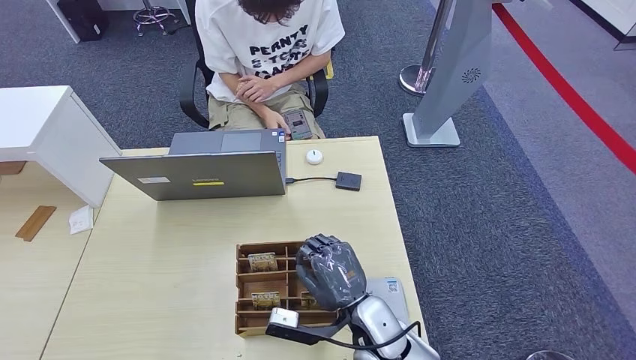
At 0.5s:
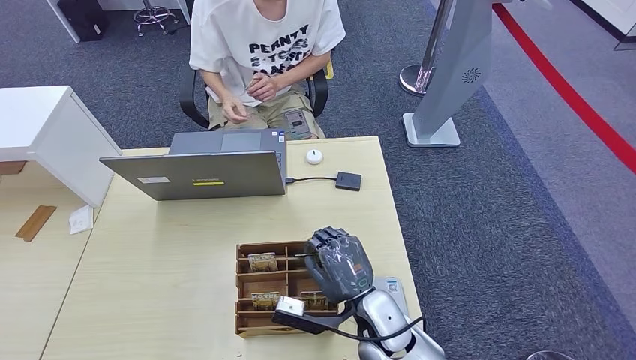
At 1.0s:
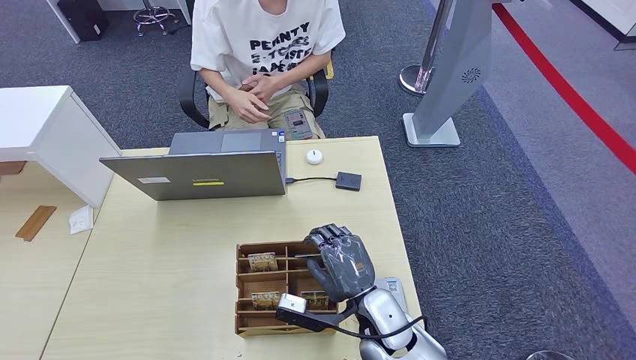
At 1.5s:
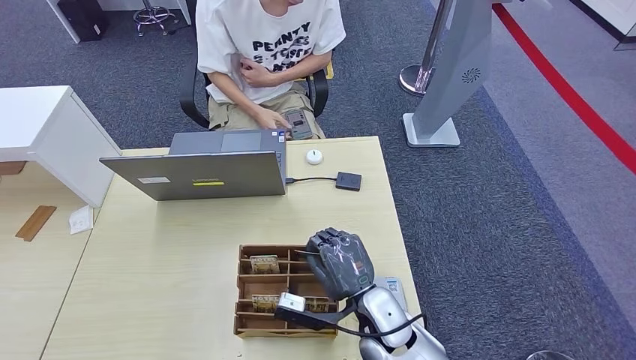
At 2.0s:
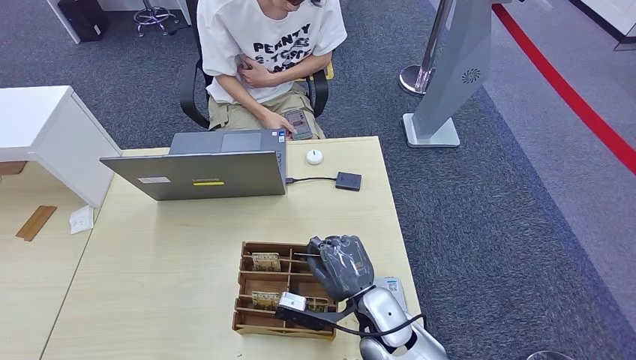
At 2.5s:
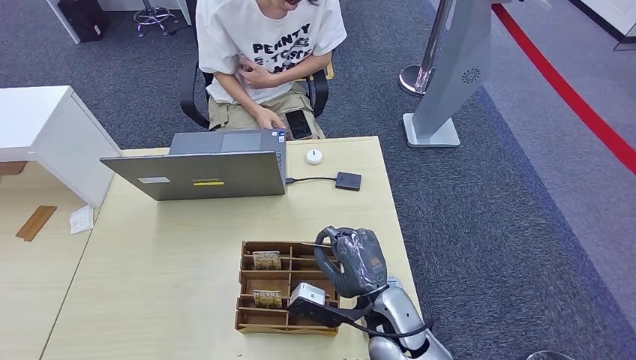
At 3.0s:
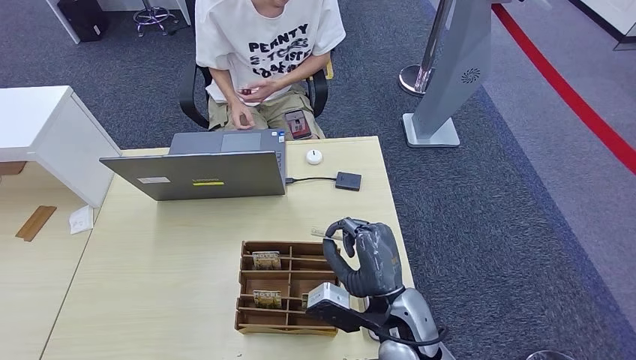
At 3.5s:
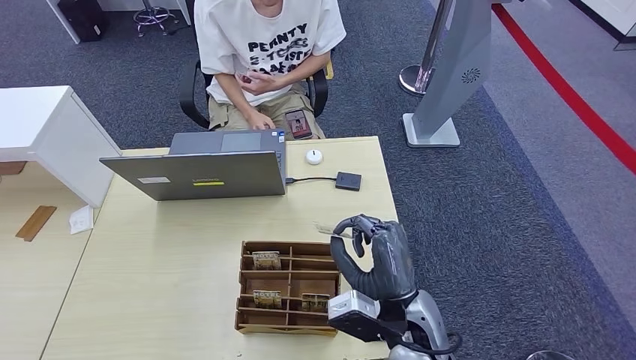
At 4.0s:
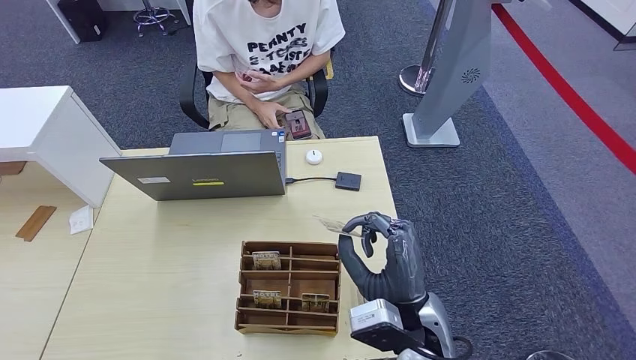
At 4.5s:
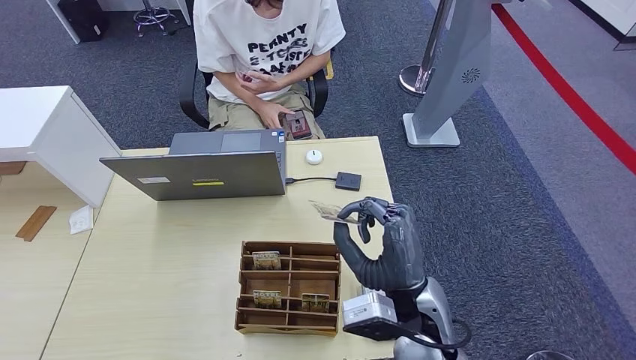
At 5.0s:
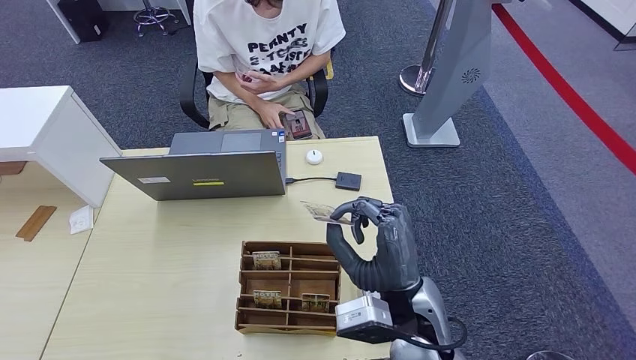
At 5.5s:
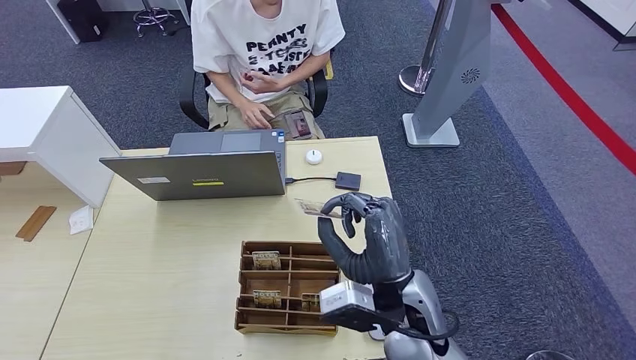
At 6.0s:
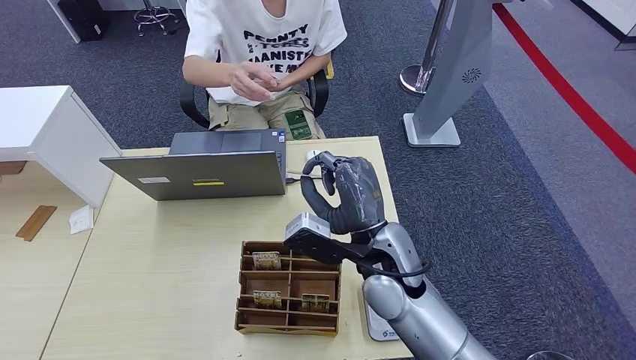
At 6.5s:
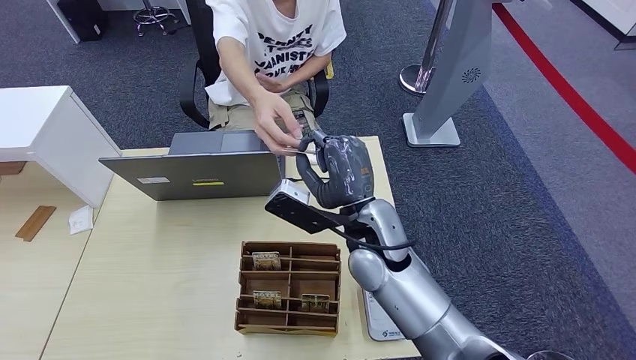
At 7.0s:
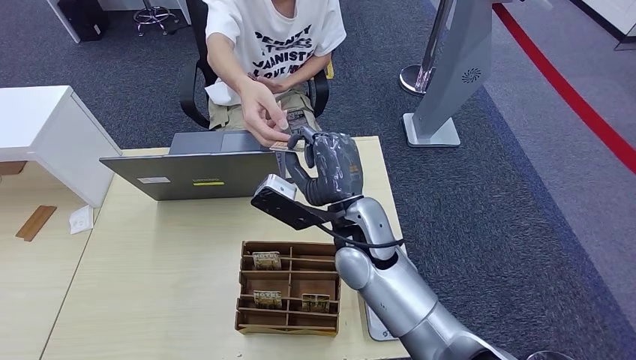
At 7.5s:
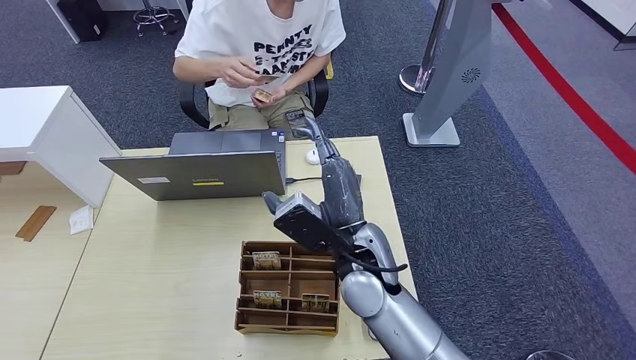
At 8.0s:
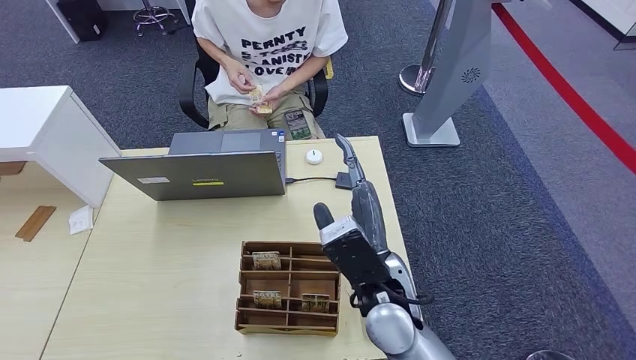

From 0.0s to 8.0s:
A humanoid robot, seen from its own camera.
Step, from 0.0s to 3.0s: Pick up the room key from the key card box.
Step, from 3.5s to 8.0s: Hand the room key to the person.
From 0.0s to 2.0s: There are only small adjustments of the hands.
From 2.0s to 4.0s: The right hand travels upward by roughly 10 cm.
From 4.0s to 6.0s: The right hand heads forward, covering about 10 cm.

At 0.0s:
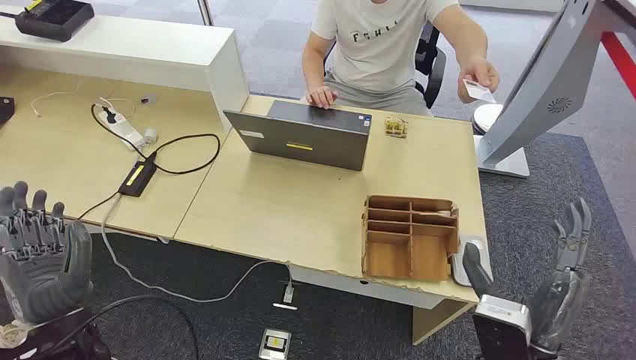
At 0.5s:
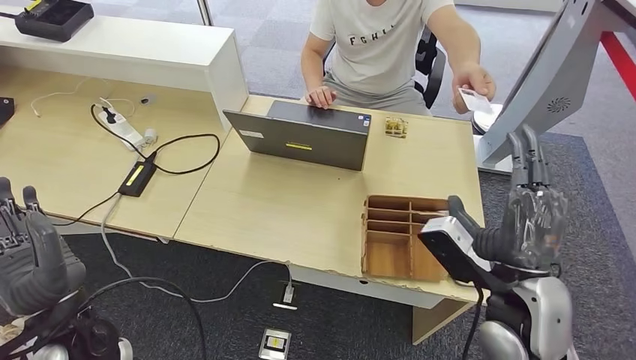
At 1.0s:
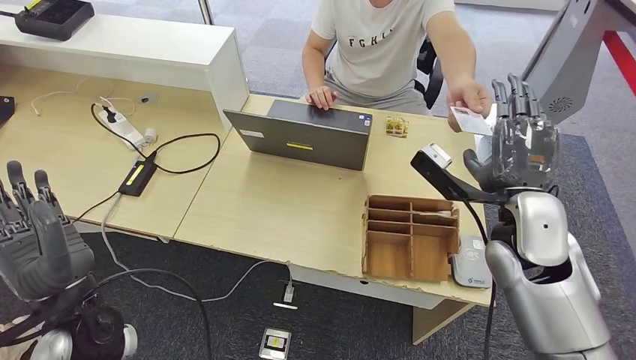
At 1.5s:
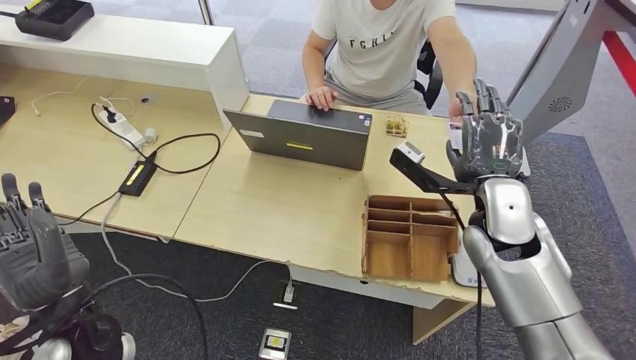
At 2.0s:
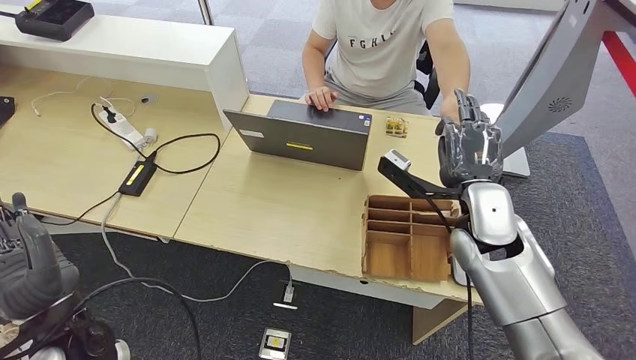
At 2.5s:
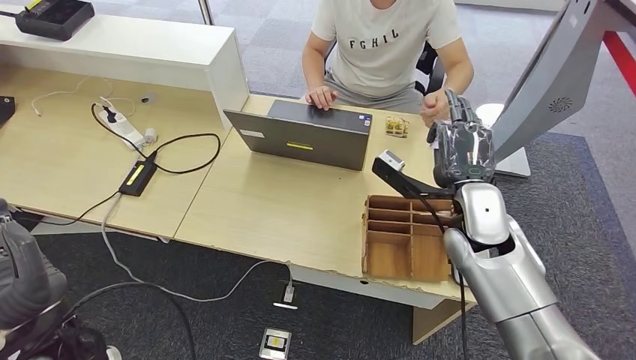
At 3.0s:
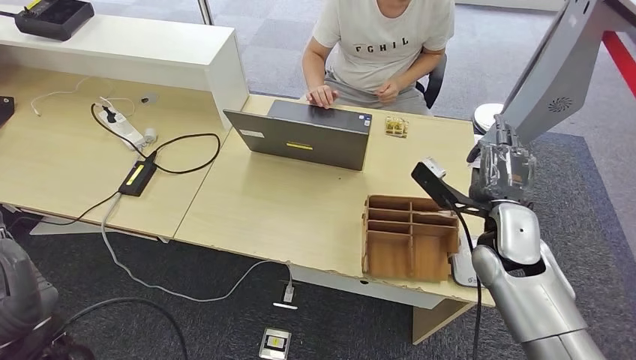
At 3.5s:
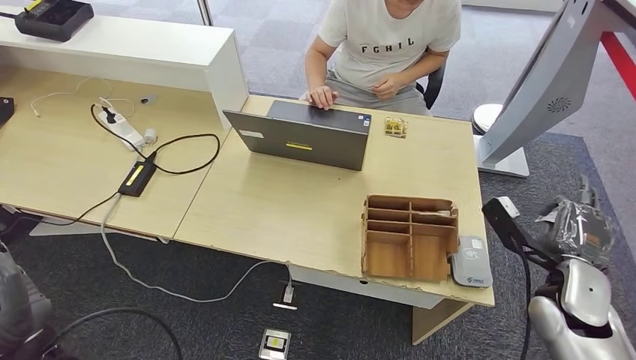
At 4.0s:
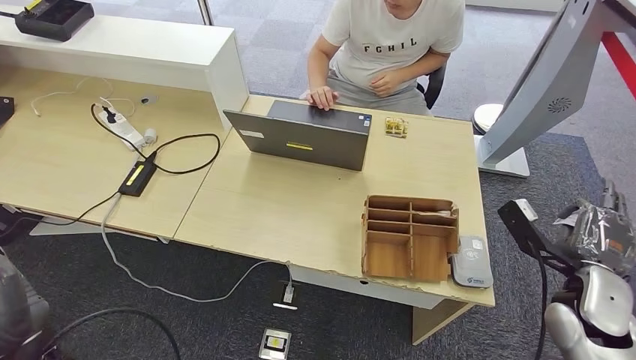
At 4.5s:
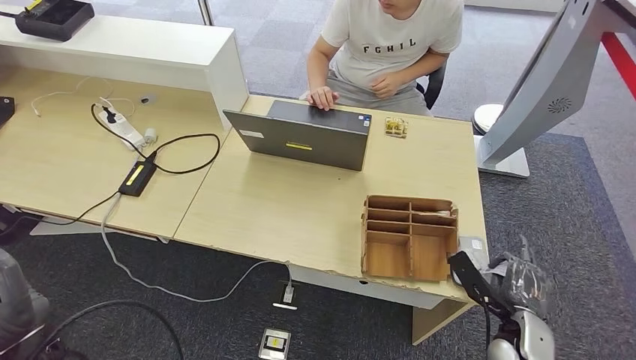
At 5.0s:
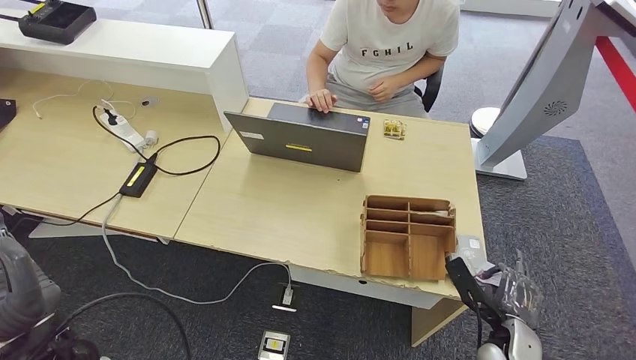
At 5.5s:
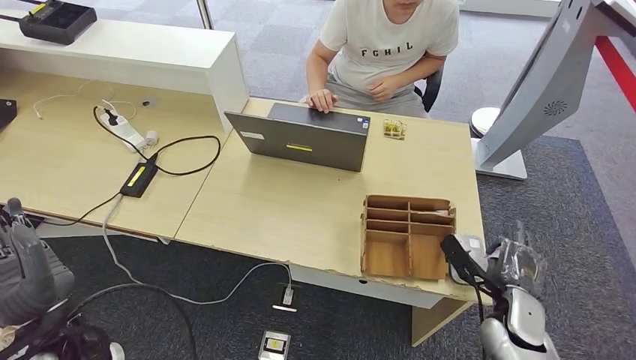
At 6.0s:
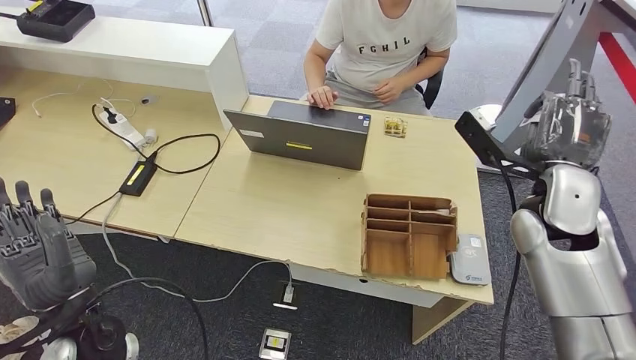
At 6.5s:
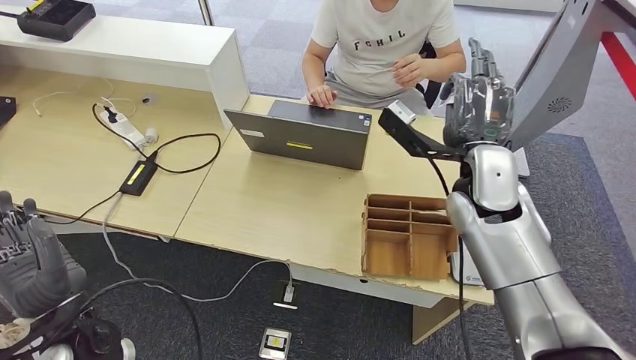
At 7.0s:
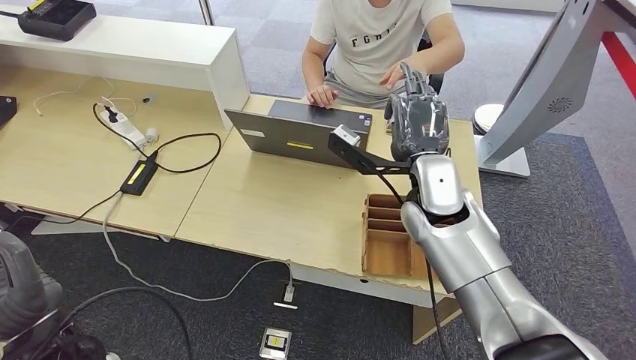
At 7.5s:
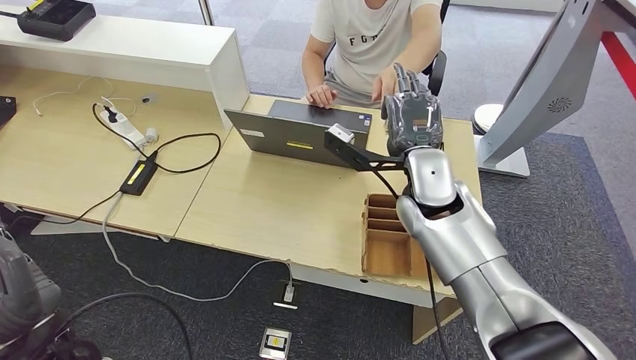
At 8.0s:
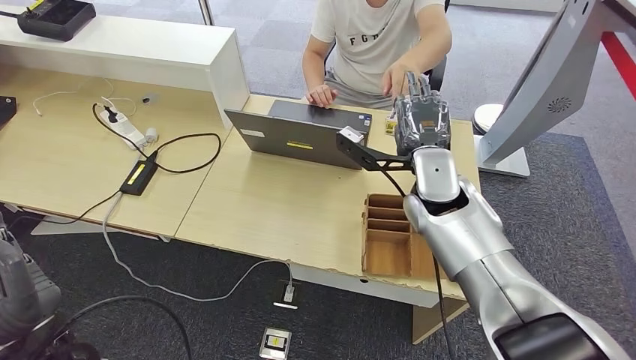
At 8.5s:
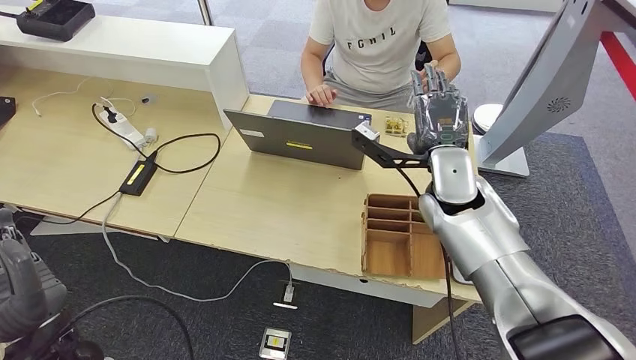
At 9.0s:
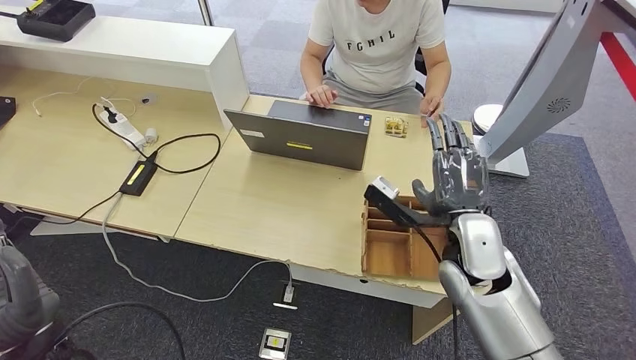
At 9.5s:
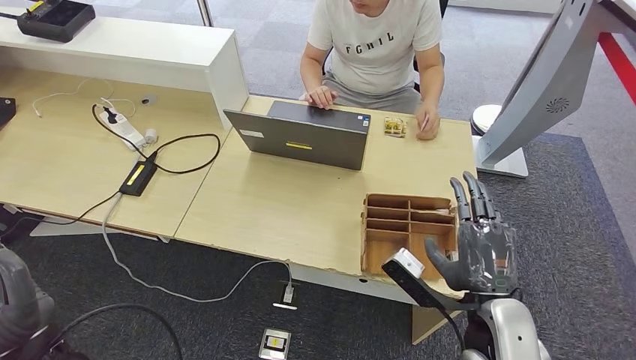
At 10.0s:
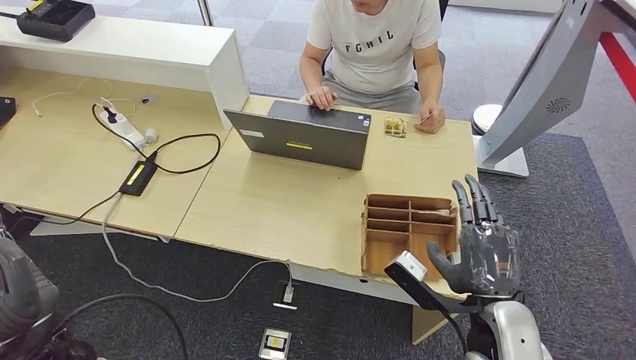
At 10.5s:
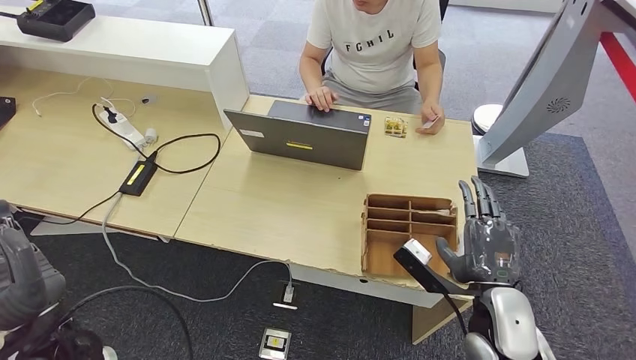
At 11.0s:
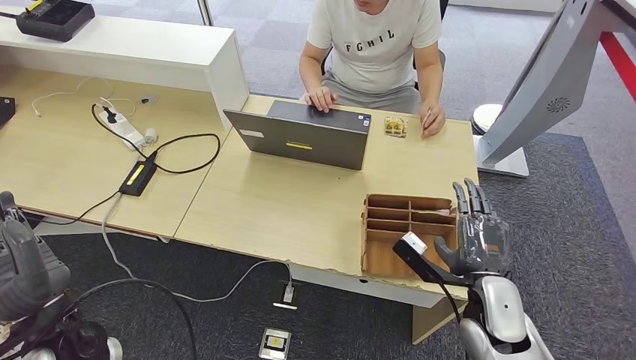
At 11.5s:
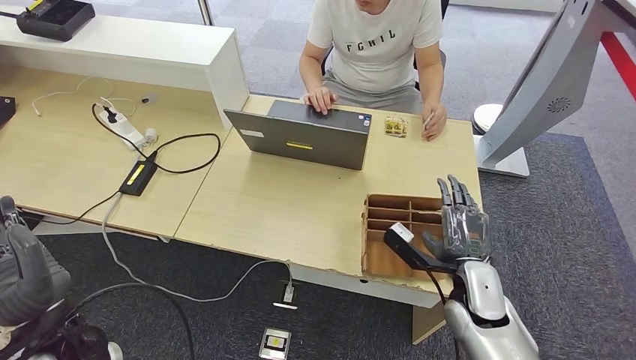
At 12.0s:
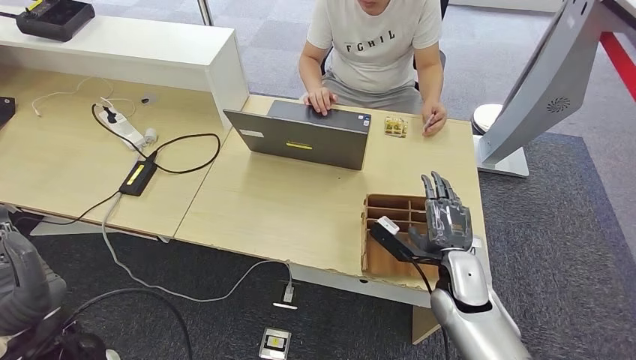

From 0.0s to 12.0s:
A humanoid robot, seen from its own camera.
Step, from 0.0s to 2.5s: Take the ID card from the person's hand.
Step, from 3.0s to 5.0s: Place the ID card on the card reader.
Step, from 6.0s to 9.0s: Hand the ID card to the person.
From 2.0s to 4.0s: The right hand moves to the right and downward, approximately 20 cm.
From 4.0s to 6.0s: The left hand travels forward by approximately 5 cm. Meanwhile the right hand moves upward, to the left and forward, roughly 15 cm.
From 8.0s to 10.0s: The right hand travels backward, to the right and downward by about 25 cm.
From 10.0s to 12.0s: The right hand heads forward and downward, covering some 10 cm.
